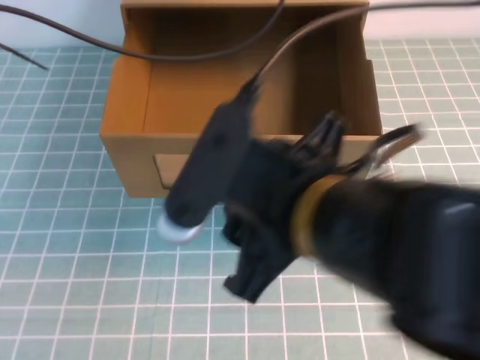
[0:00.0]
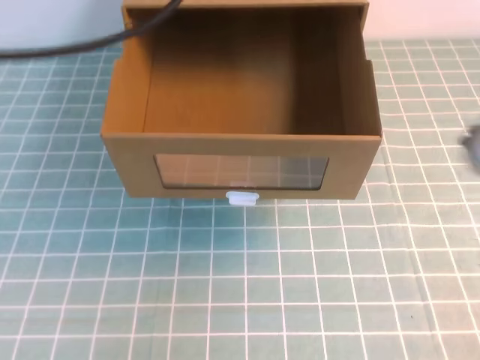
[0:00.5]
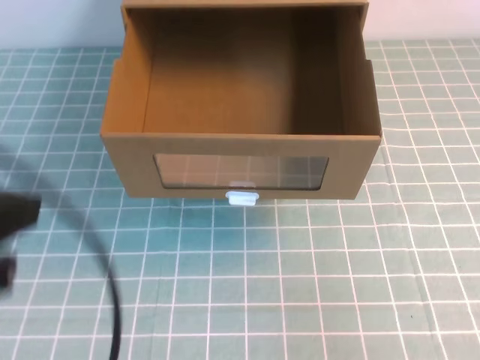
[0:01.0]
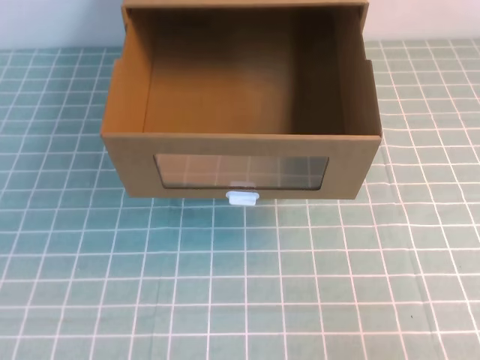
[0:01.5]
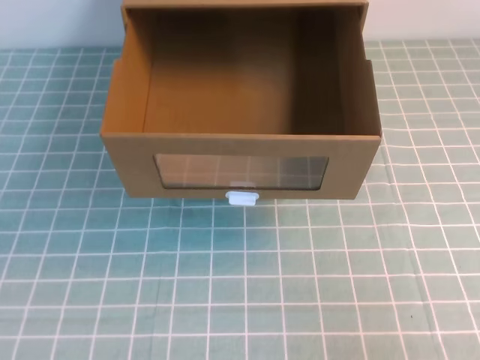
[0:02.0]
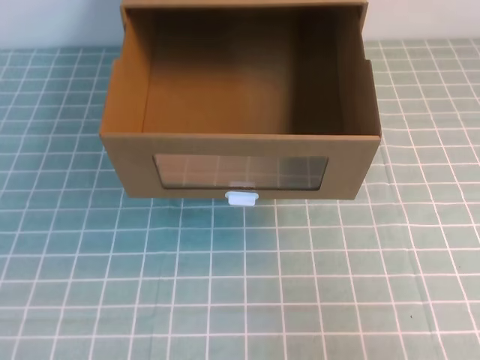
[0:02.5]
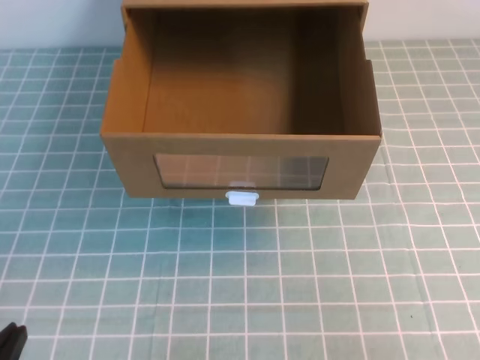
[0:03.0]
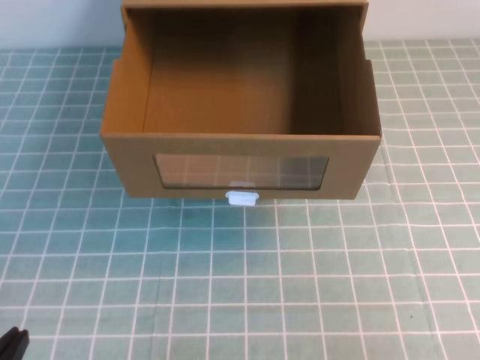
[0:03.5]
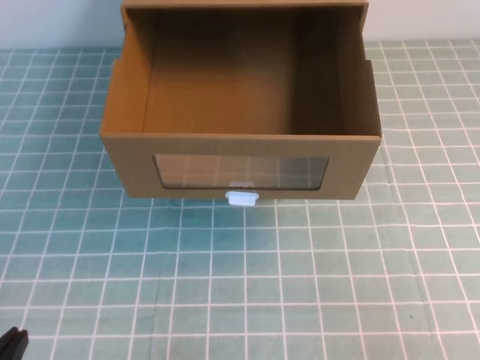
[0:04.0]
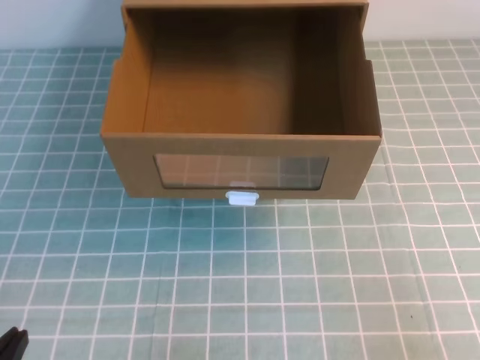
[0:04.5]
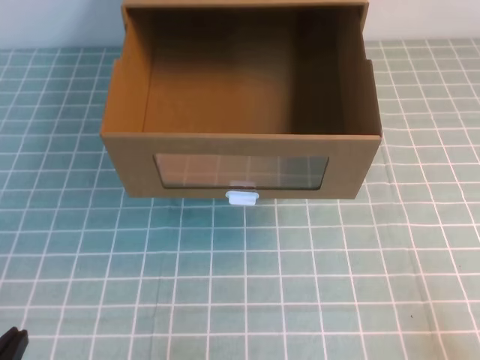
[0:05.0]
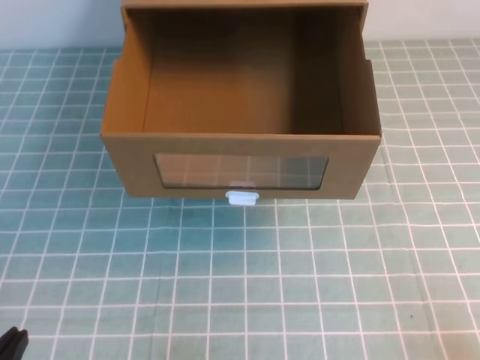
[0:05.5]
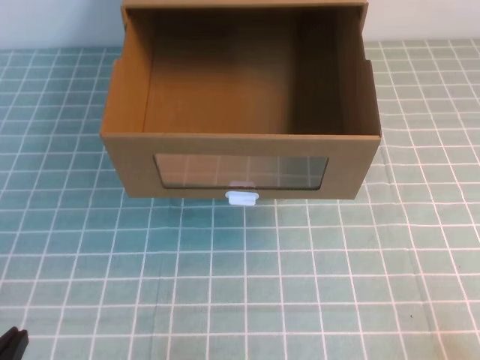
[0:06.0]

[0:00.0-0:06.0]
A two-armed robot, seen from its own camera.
Task of the whole recording: open the shoebox on the cyan tablecloth.
Step, 0:00.0 to 0:06.0: Open the shoe box.
0:00.0 to 0:02.0: The left gripper shifts some 40 cm backward and to the left, while the right gripper goes approximately 25 cm to the right, and closes up.
0:02.0 to 0:04.0: The left gripper goes approximately 20 cm downward.

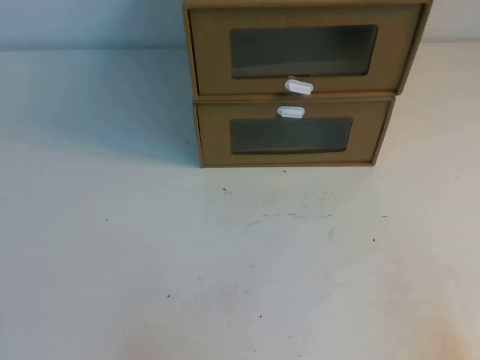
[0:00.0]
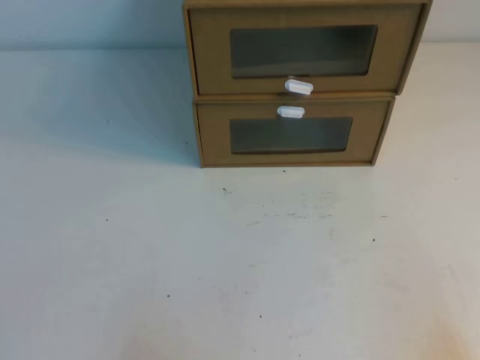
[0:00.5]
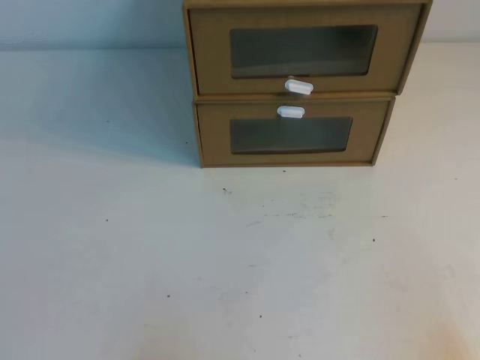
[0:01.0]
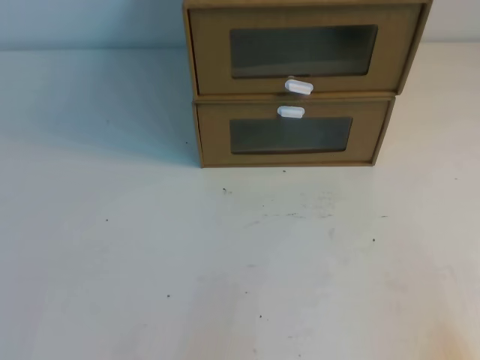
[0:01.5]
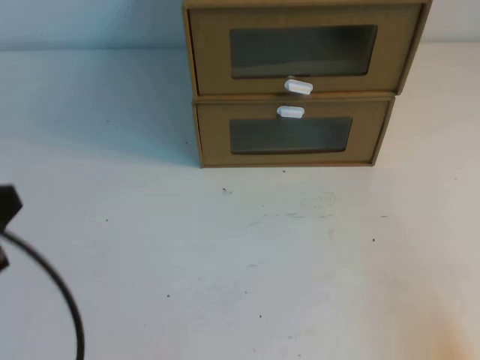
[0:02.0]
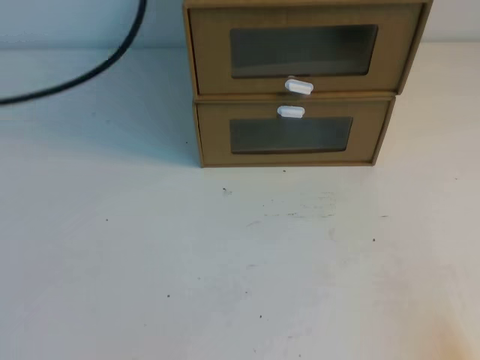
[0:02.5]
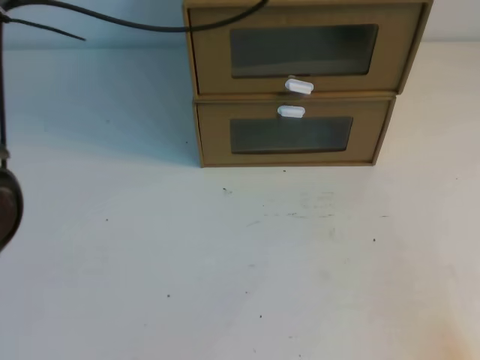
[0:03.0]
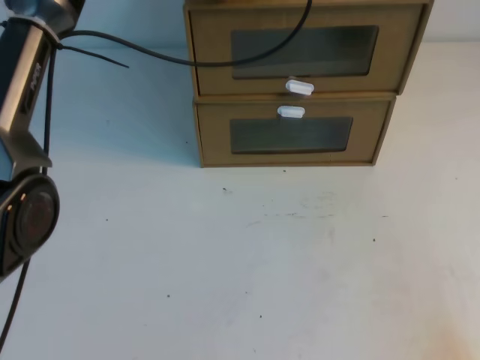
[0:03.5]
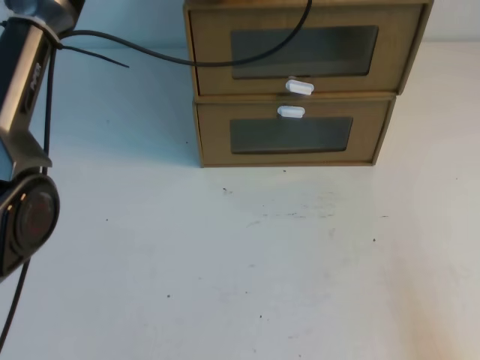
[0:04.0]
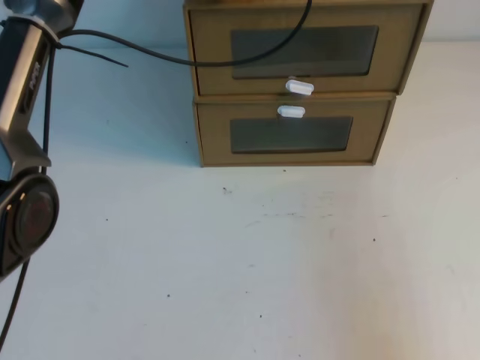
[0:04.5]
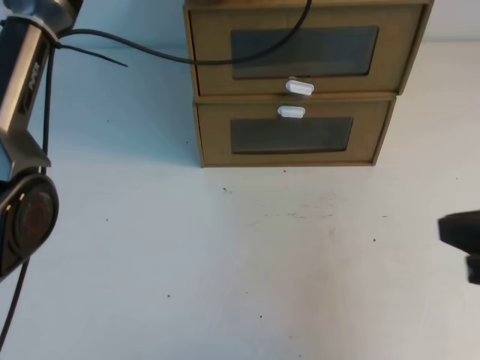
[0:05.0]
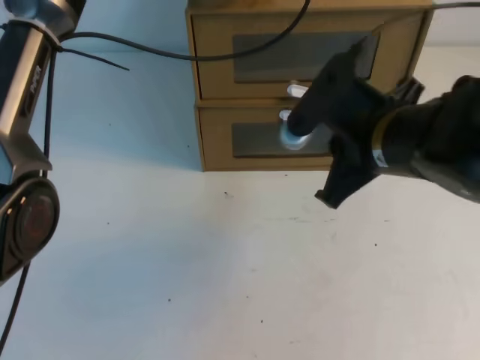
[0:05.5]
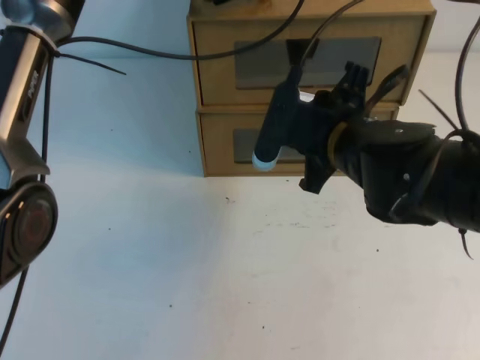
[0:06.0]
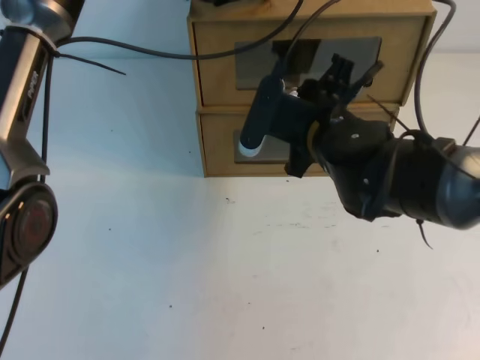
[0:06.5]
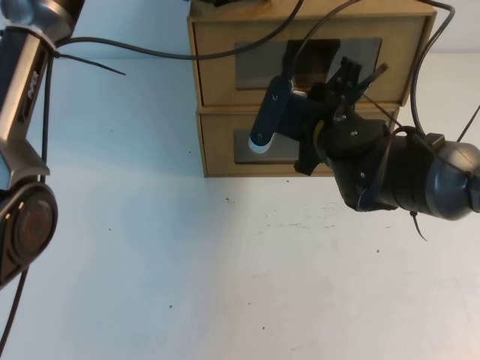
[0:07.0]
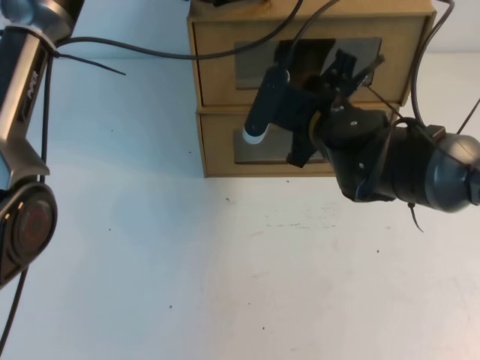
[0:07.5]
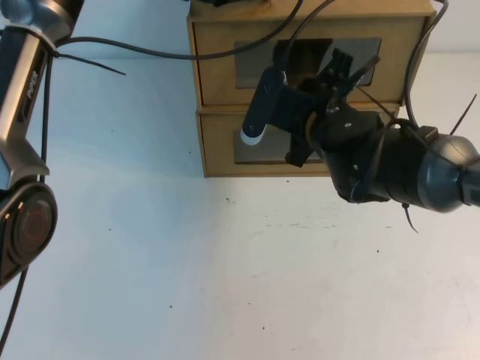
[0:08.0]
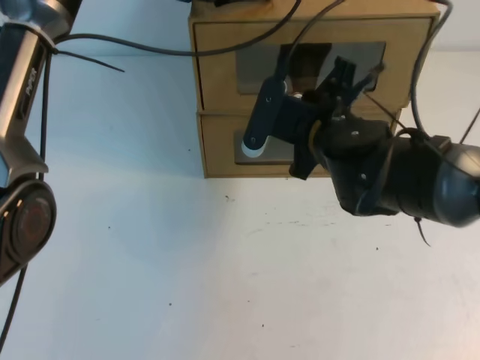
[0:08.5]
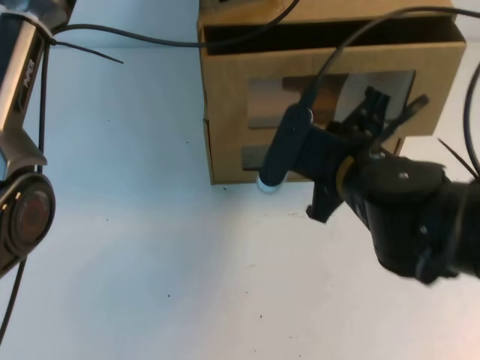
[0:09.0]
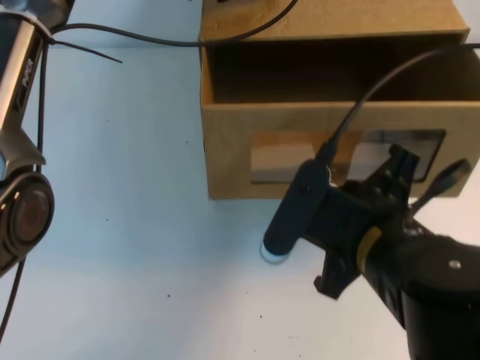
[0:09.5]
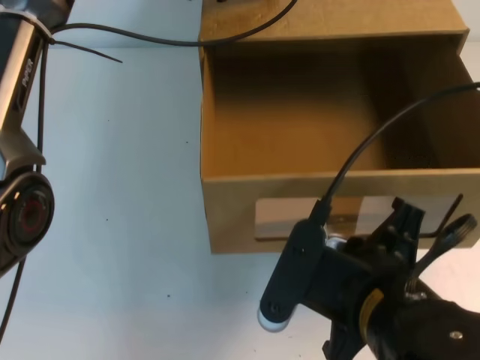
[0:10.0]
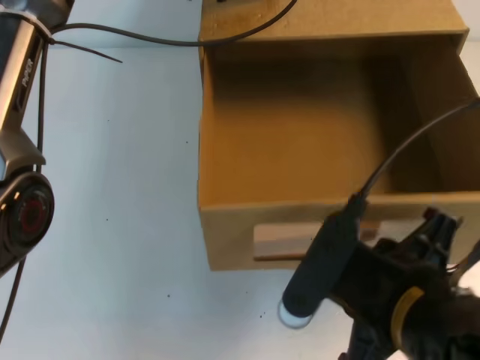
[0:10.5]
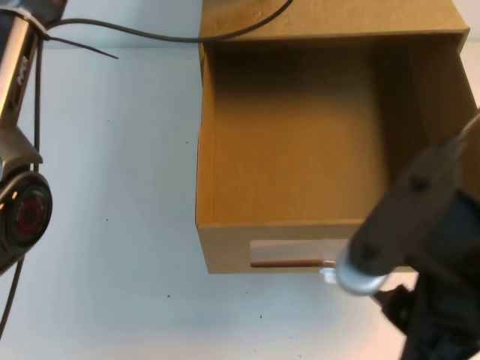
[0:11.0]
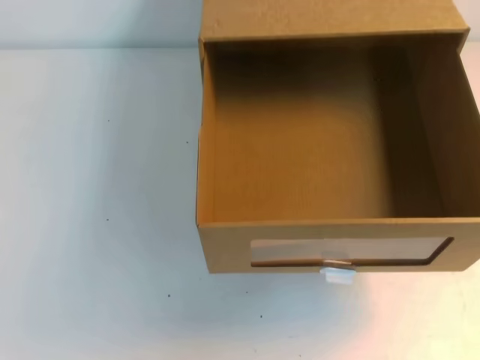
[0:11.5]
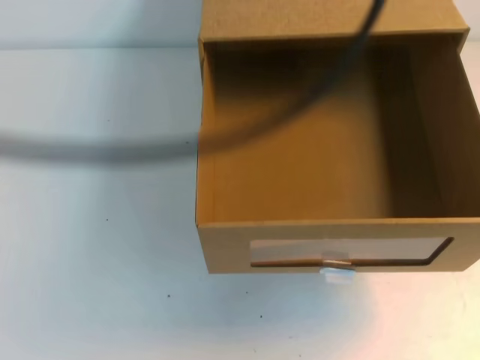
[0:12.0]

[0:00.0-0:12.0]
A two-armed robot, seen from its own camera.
Task of the whole recording: open the shoebox on the table.
0:02.0 to 0:04.0: The left gripper shifts about 40 cm forward and to the right.
0:04.0 to 0:06.0: The right gripper goes about 35 cm forward and to the left, and opens.
0:06.0 to 0:08.0: The right gripper travels forward by roughly 5 cm.
0:08.0 to 0:10.0: The right gripper moves backward, approximately 25 cm, and closes its fingers.
0:10.0 to 0:12.0: The left gripper goes some 30 cm backward and upward. Meanwhile the right gripper goes approximately 25 cm upward and to the right, and opens and closes again.

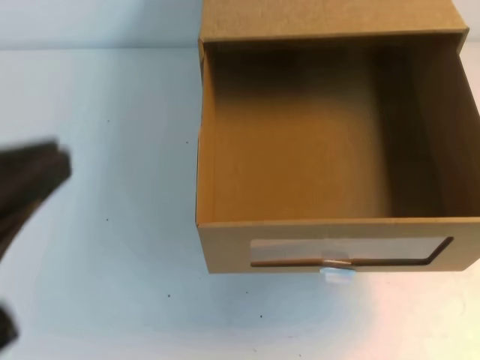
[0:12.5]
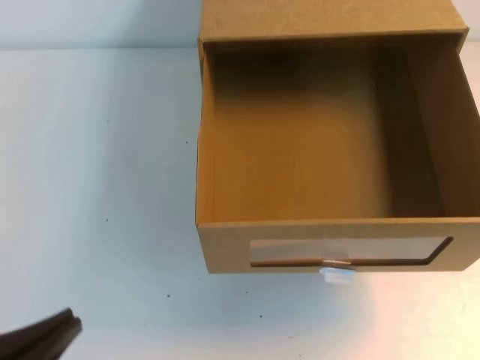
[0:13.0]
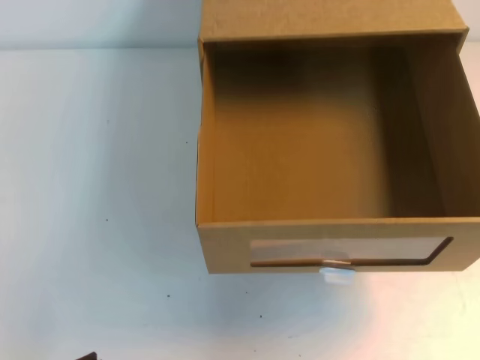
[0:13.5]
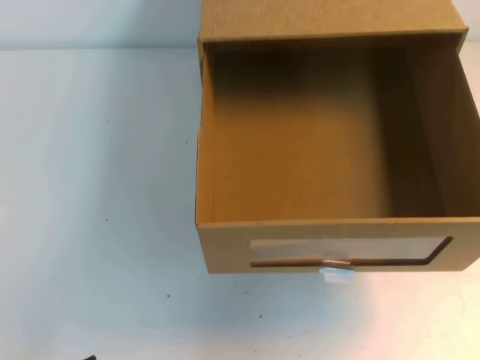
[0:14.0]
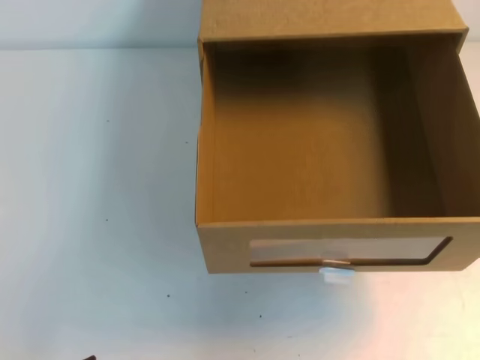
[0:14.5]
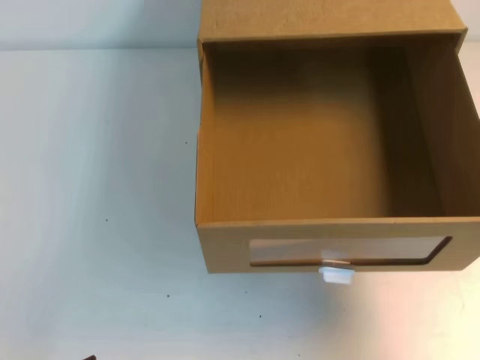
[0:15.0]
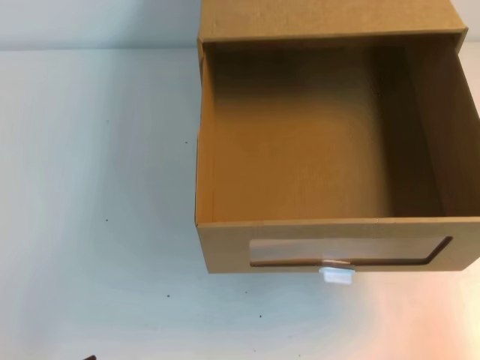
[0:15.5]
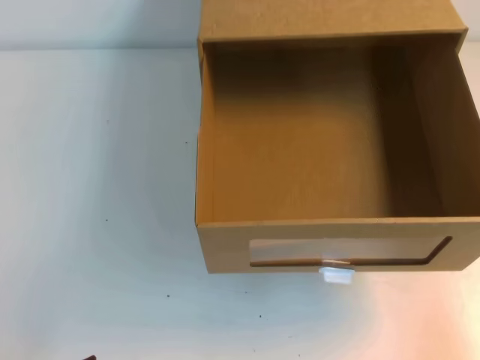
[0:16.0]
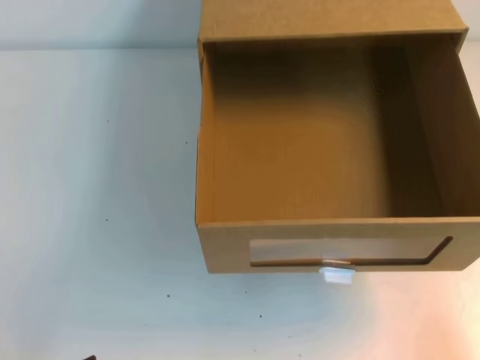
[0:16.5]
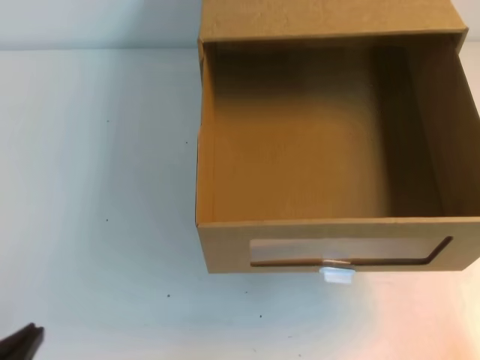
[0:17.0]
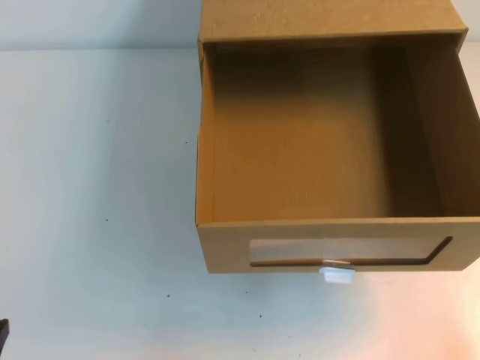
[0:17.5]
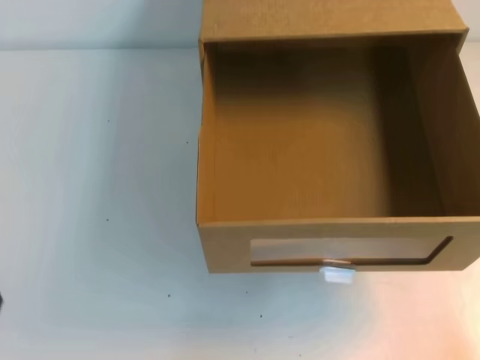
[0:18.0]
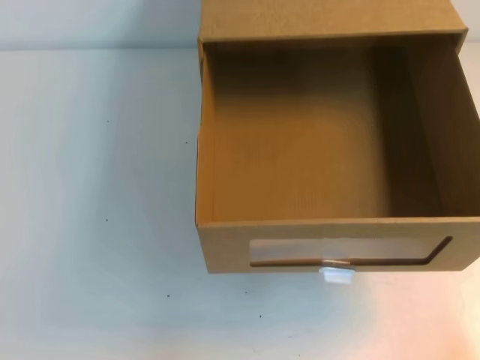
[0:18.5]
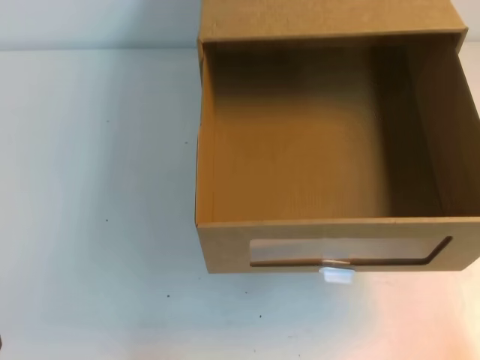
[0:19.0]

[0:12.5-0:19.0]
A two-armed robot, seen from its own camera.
Task of the whole recording: open the shoebox on the table.
Step, 0:12.5 to 0:19.0: Open the shoe box.
0:12.5 to 0:14.5: The left gripper moves downward, some 25 cm.
0:14.5 to 0:17.0: The right gripper goes roughly 30 cm downward.

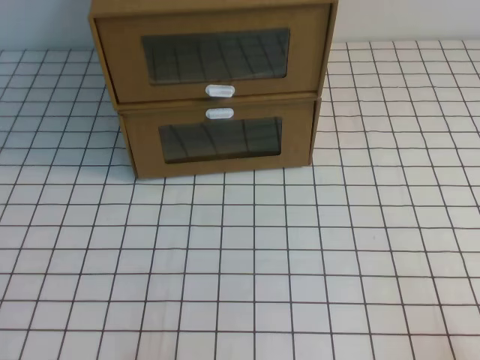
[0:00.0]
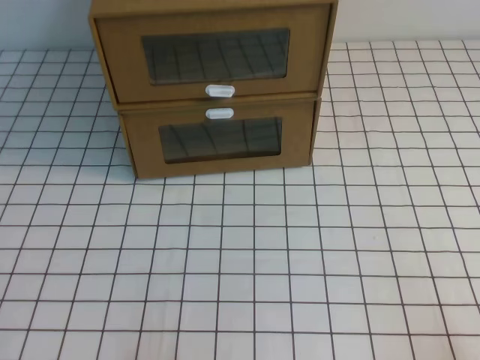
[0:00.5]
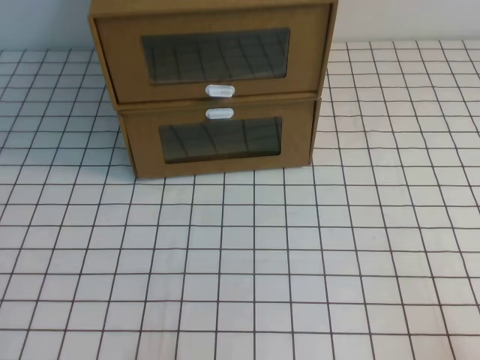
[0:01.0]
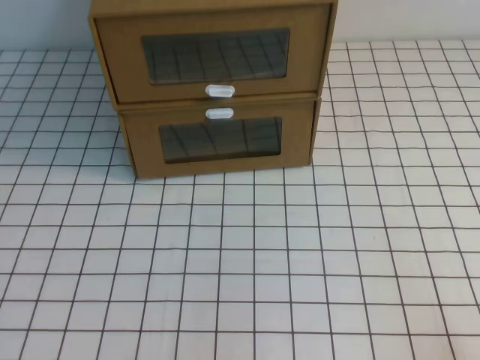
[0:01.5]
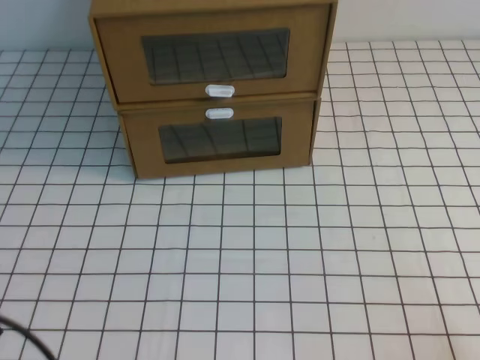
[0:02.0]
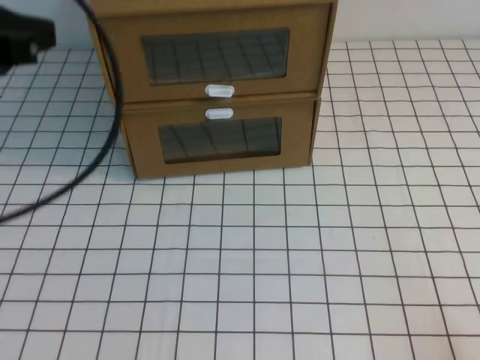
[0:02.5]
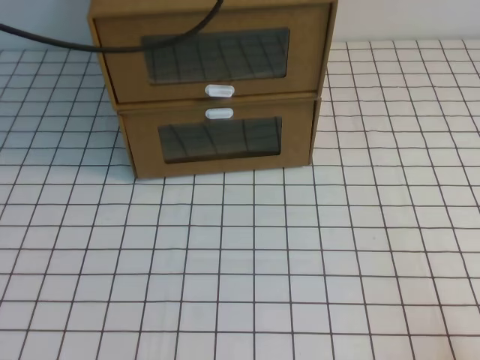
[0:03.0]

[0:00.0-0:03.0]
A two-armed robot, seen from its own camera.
Task of the whole recording: open the shoebox on the white tablecloth.
0:01.5 to 0:03.0: The left gripper shifts approximately 40 cm forward and upward.
